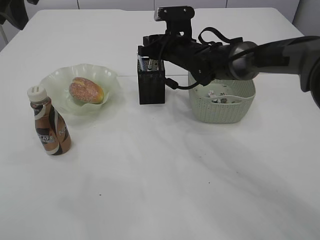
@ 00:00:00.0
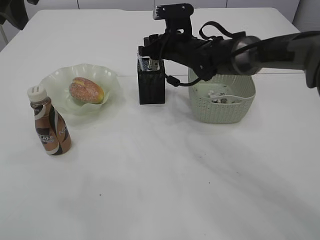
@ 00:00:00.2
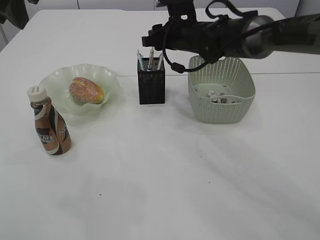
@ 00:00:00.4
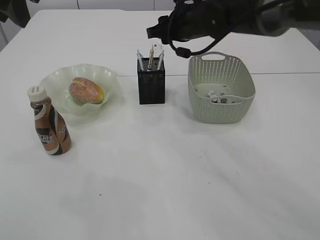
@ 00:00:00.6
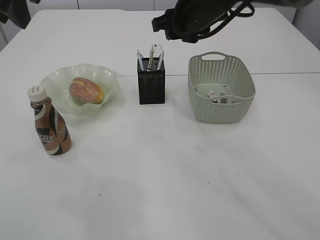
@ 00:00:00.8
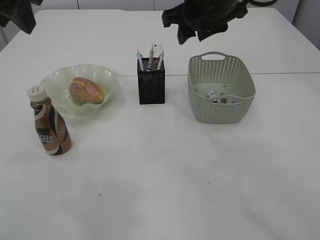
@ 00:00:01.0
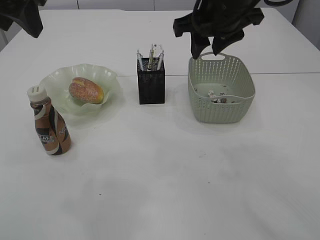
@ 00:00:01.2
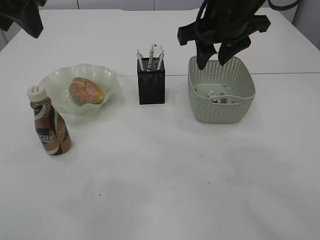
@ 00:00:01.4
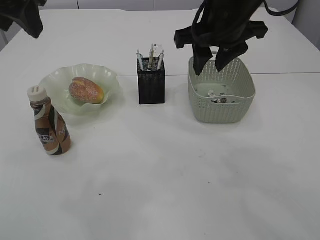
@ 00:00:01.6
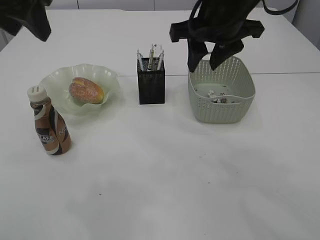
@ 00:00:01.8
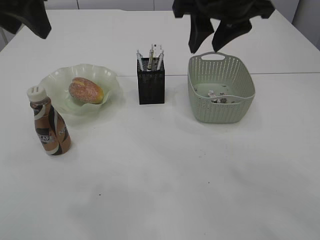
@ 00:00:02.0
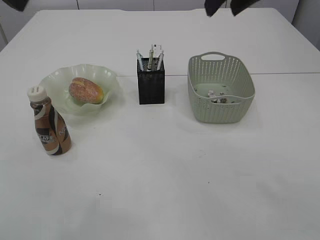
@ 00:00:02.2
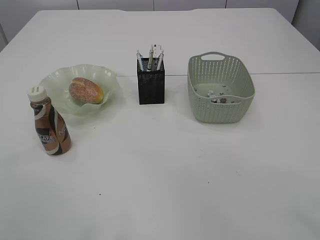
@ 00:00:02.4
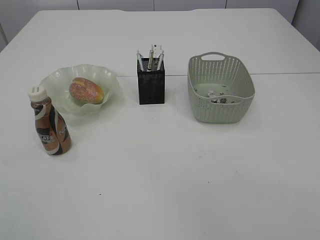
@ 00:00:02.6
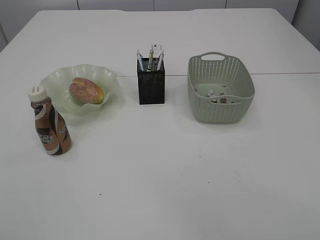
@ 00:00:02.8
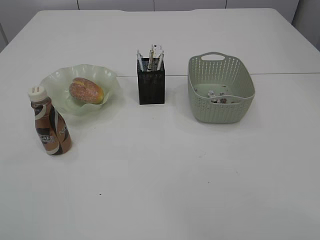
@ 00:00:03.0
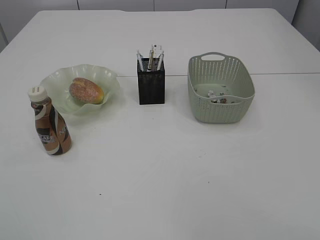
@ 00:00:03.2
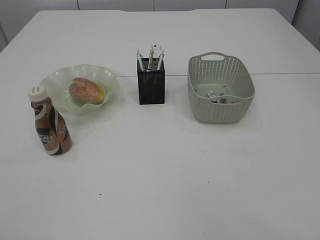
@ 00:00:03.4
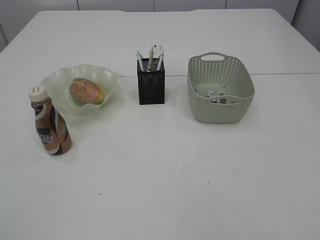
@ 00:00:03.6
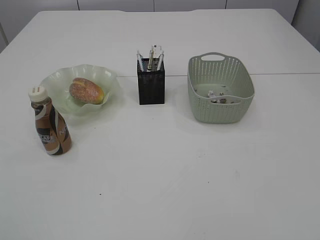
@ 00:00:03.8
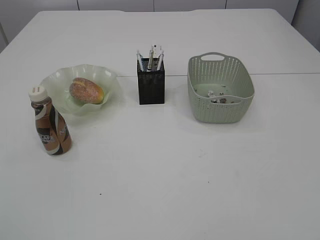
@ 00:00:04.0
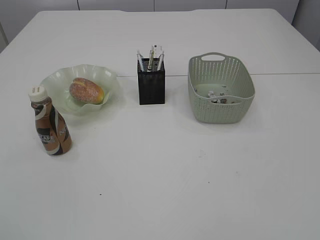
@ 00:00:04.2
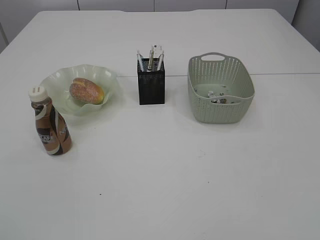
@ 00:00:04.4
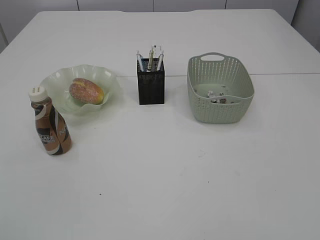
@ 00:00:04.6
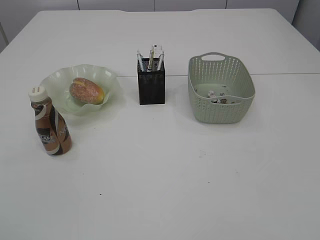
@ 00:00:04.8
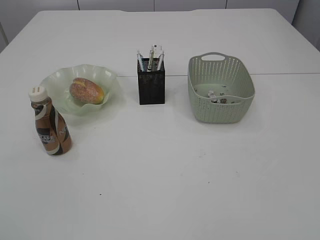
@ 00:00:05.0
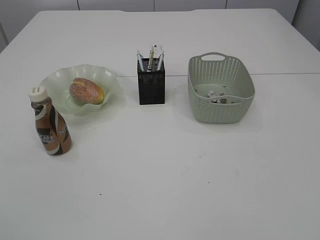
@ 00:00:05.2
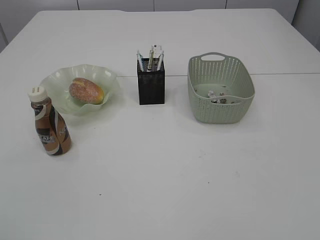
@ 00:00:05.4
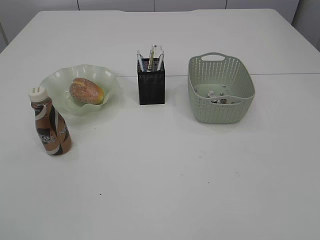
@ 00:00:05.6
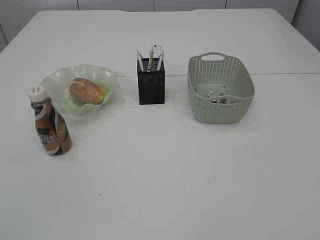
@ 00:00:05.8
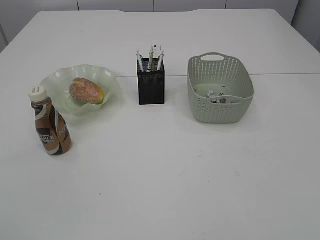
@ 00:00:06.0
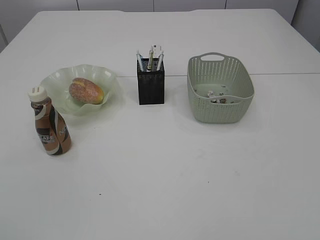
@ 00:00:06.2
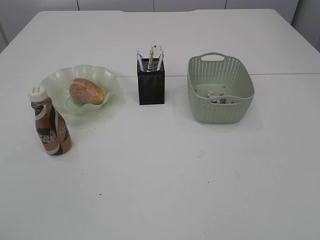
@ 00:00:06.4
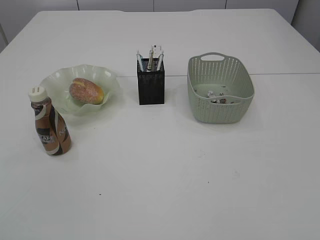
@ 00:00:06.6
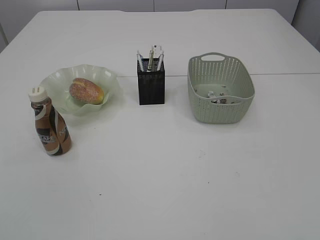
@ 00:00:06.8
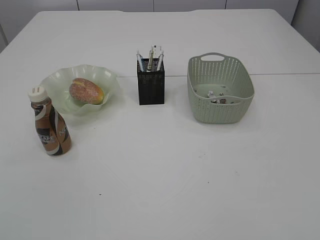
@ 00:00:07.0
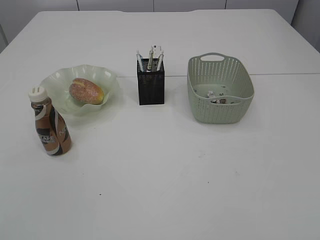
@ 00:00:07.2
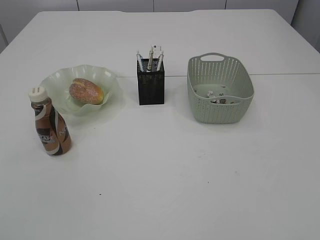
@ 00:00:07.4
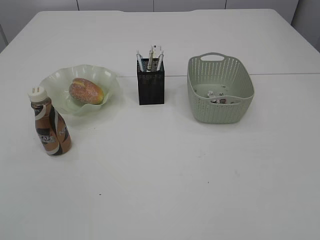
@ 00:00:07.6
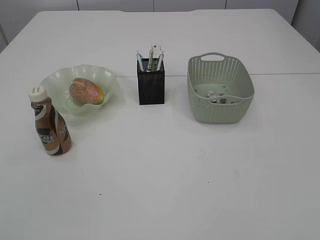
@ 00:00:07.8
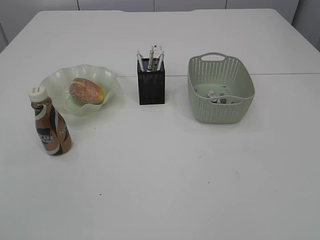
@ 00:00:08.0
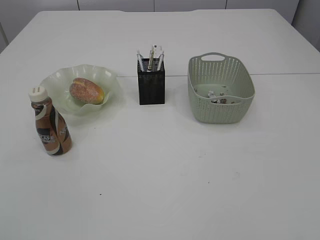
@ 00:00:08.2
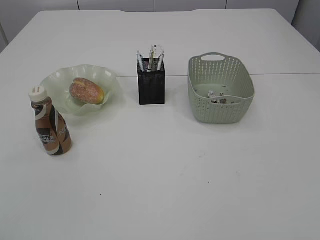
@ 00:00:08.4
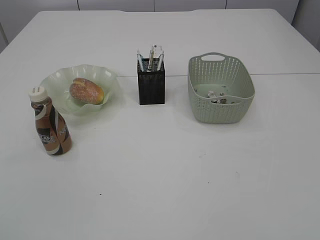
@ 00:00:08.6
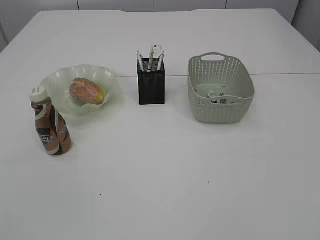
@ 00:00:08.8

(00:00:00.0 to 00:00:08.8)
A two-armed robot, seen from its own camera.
00:00:00.0 - 00:00:01.4: The left gripper opens its fingers. Meanwhile the right gripper goes some 20 cm upward and backward.
00:00:01.4 - 00:00:03.0: The right gripper shifts approximately 30 cm backward, upward and to the right; the left gripper travels backward, upward and to the left by some 25 cm.
00:00:07.4 - 00:00:08.8: Both grippers stay put.
